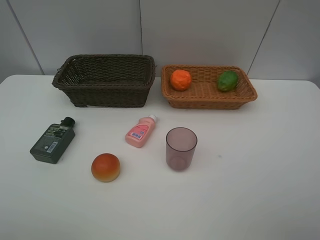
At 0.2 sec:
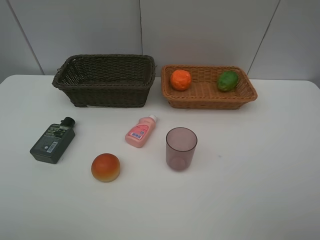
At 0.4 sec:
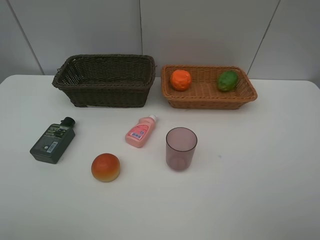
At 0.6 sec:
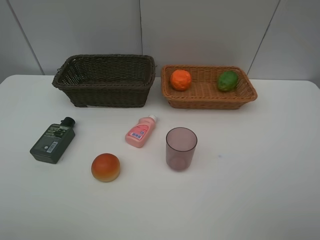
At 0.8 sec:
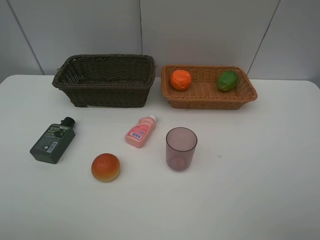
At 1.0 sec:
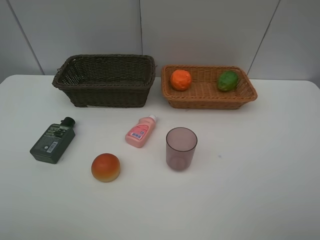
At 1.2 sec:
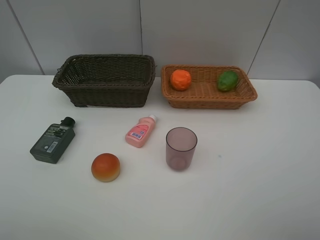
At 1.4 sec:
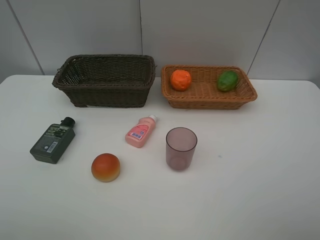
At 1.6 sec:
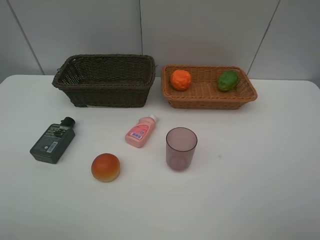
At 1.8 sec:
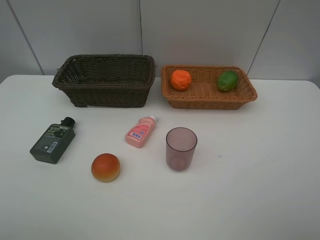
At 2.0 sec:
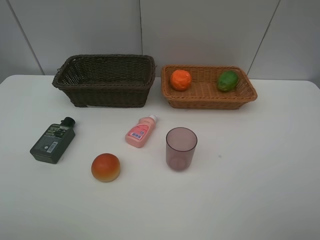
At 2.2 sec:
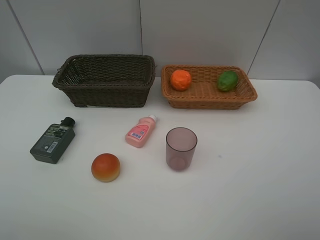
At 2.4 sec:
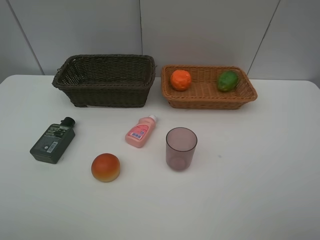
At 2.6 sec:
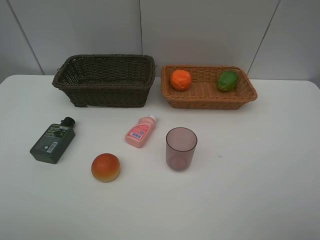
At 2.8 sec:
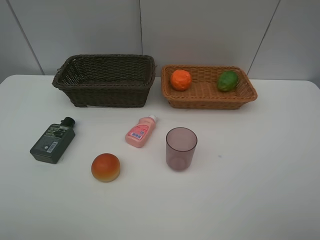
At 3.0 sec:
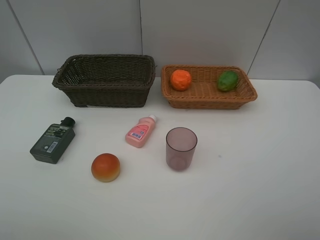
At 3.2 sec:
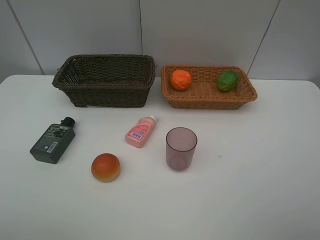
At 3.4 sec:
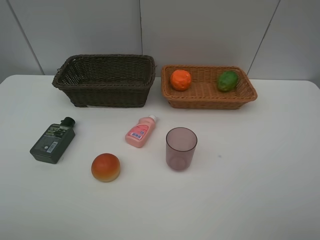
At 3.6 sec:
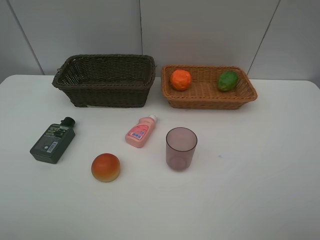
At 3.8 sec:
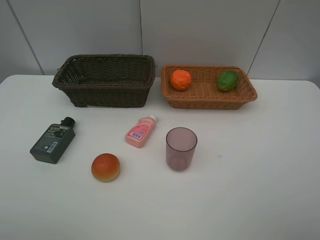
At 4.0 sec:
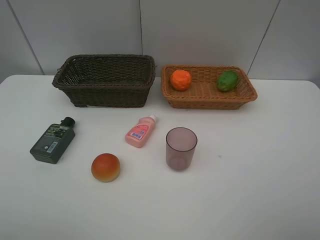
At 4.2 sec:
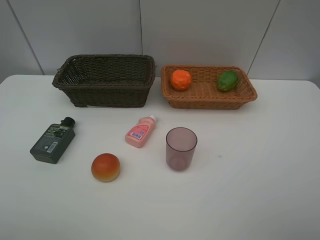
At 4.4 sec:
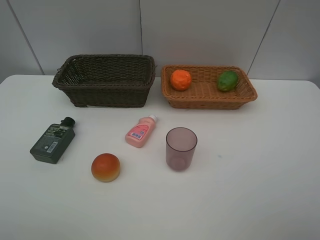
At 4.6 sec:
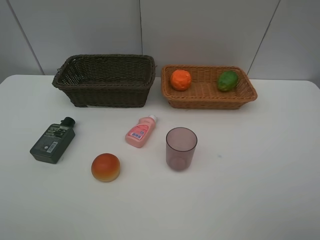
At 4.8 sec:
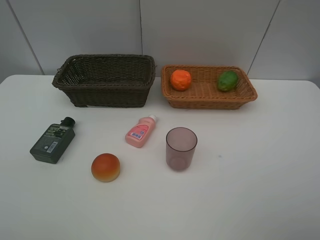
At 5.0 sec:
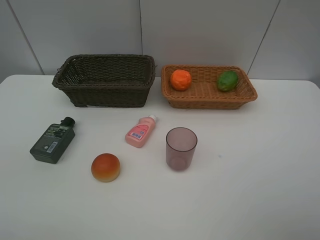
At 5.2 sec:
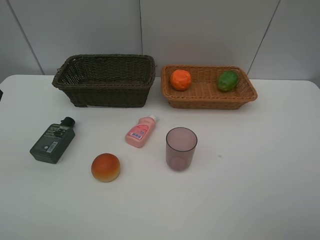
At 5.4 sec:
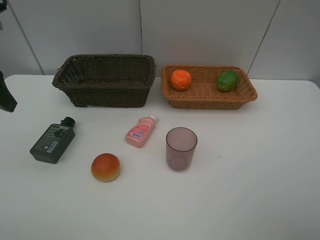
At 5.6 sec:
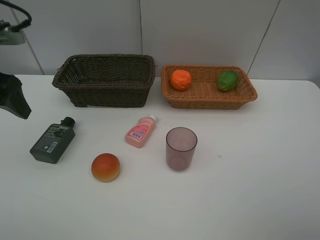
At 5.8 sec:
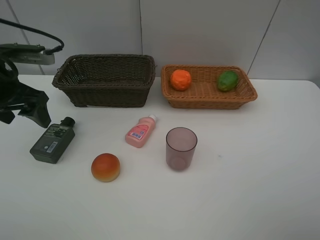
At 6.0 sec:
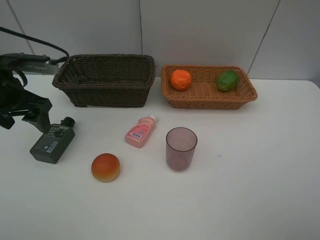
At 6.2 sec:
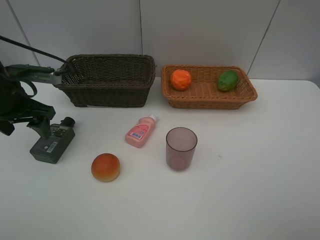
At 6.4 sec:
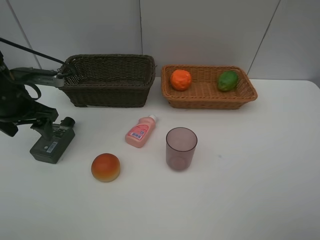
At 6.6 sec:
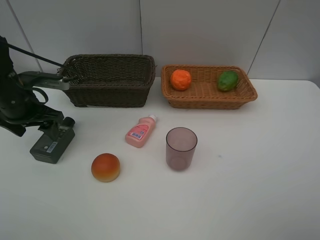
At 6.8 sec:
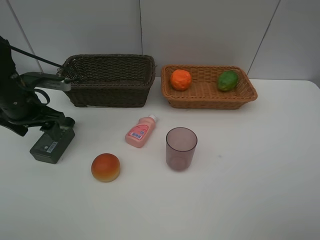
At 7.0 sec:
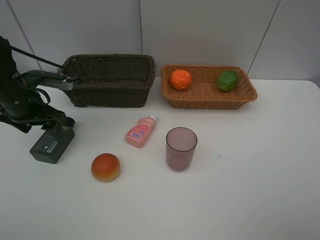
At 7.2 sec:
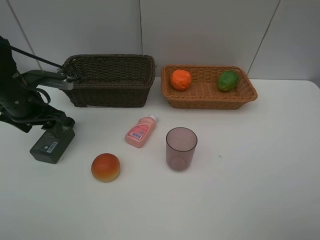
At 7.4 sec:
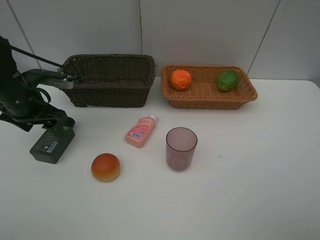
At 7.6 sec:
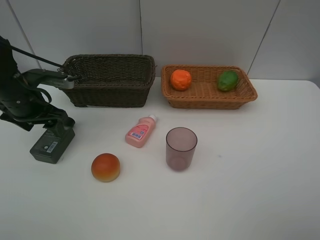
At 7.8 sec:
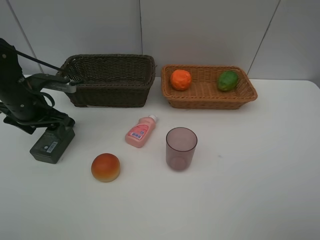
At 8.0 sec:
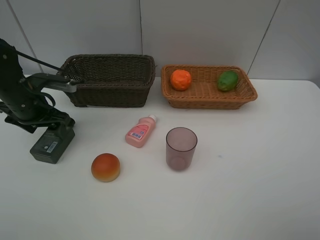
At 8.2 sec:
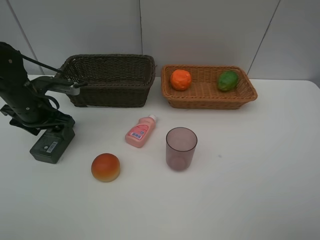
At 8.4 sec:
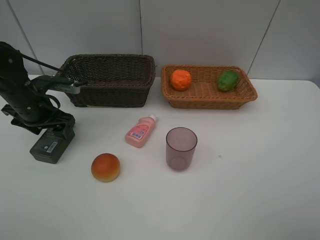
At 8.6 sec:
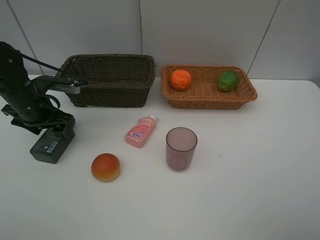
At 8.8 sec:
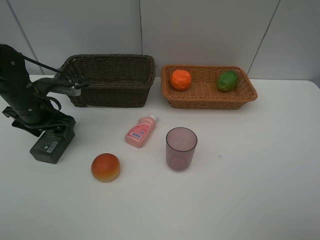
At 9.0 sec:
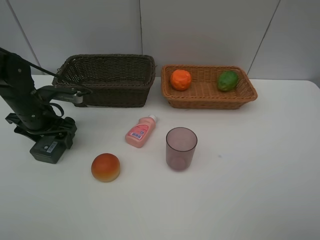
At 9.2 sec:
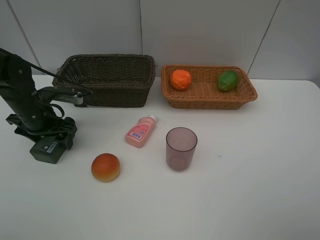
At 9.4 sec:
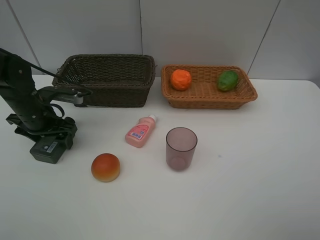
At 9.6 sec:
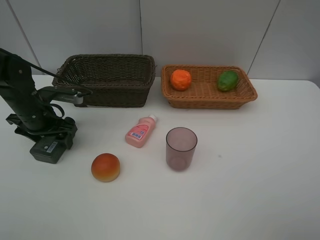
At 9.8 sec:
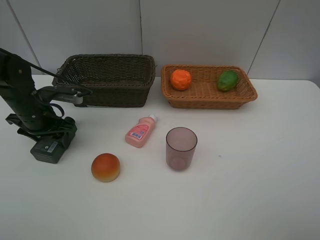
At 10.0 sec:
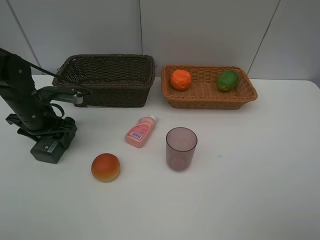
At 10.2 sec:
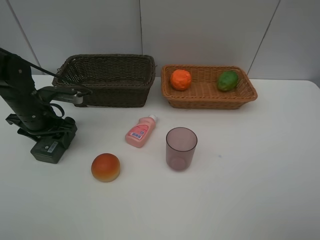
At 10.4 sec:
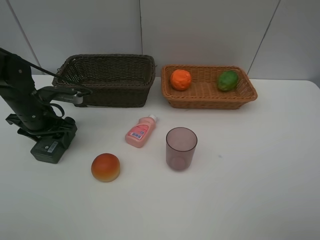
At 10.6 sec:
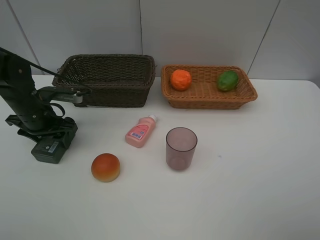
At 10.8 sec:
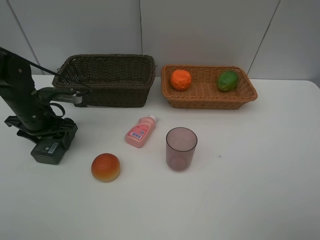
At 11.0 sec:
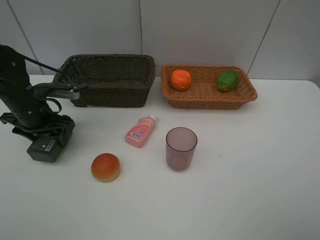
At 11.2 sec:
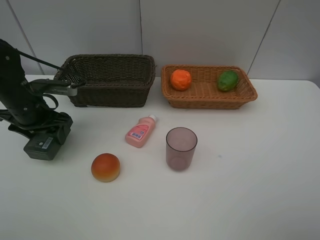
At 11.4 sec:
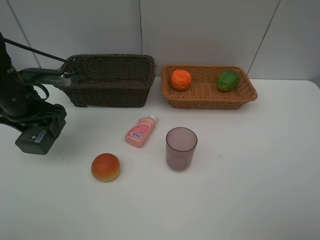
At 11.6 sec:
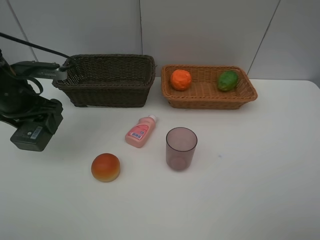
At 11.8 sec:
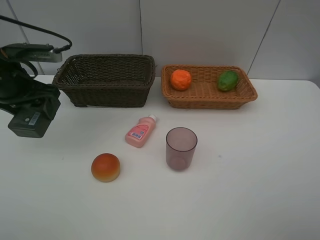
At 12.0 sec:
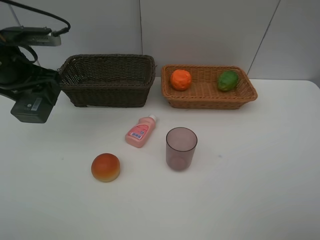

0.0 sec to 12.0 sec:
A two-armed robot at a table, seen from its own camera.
Task of the whole recording: place multiple objects separately in different baskets.
1.6 sec to 3.0 sec: Both grippers stay about where they are.
4.4 sec to 6.0 sec: The left gripper moves forward and downward, approximately 30 cm.
6.0 sec to 7.6 sec: The left gripper is displaced downward by about 5 cm.
7.6 sec to 9.0 sec: The grippers stay close to where they were, moving slightly.
9.0 sec to 10.4 sec: Neither gripper changes place.
10.4 sec to 12.0 sec: The left gripper shifts about 15 cm upward.

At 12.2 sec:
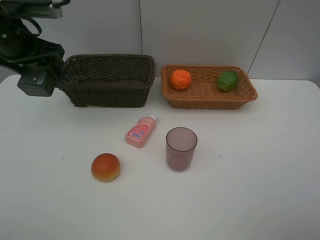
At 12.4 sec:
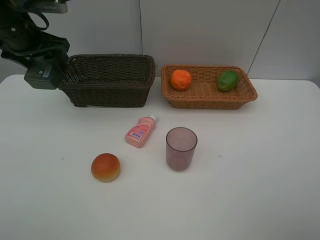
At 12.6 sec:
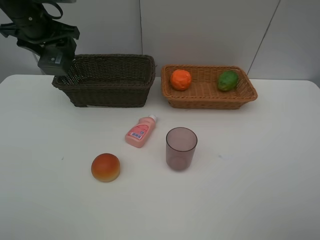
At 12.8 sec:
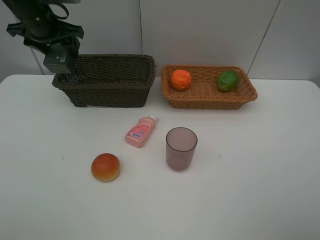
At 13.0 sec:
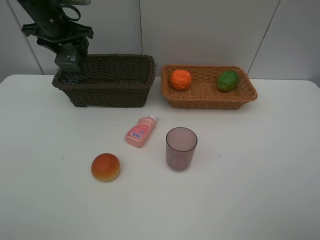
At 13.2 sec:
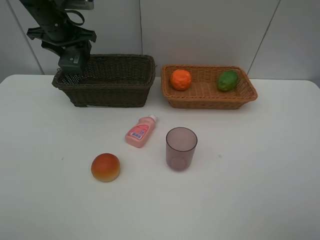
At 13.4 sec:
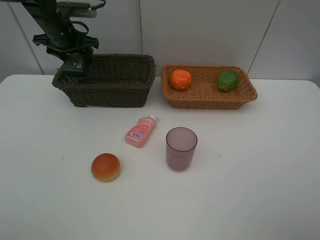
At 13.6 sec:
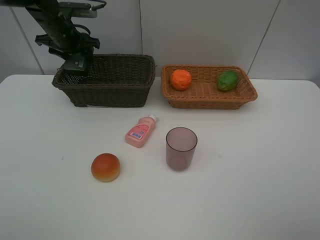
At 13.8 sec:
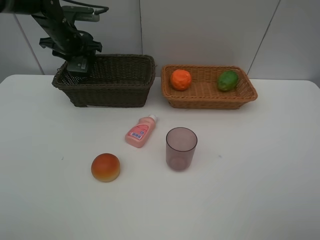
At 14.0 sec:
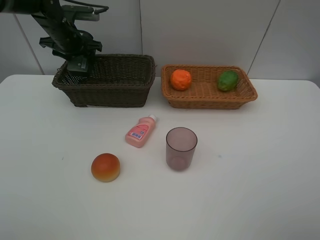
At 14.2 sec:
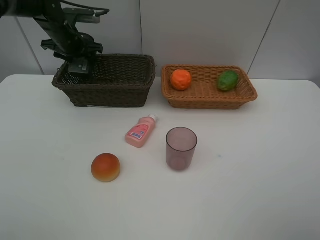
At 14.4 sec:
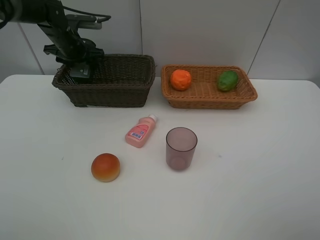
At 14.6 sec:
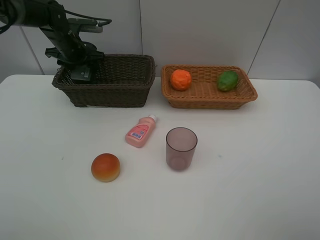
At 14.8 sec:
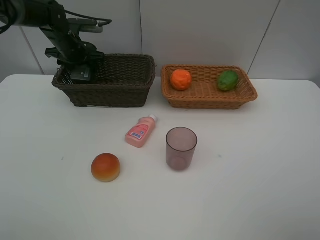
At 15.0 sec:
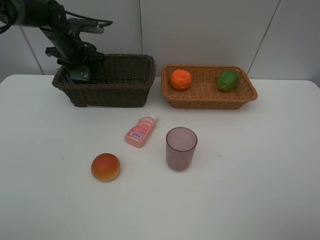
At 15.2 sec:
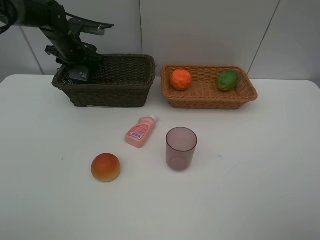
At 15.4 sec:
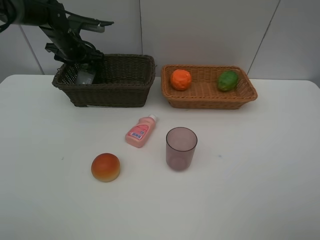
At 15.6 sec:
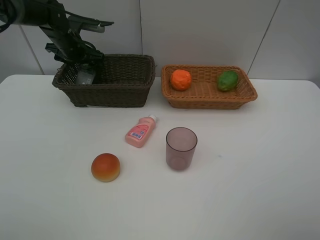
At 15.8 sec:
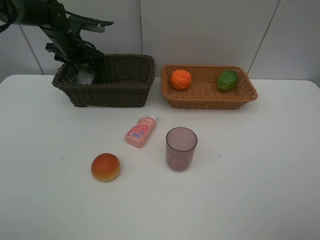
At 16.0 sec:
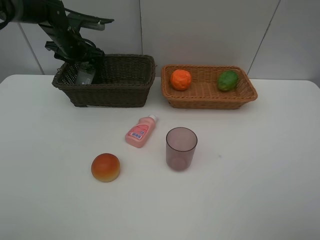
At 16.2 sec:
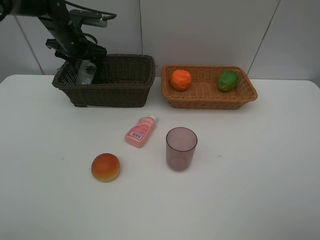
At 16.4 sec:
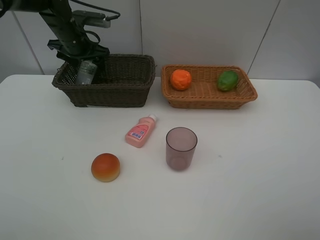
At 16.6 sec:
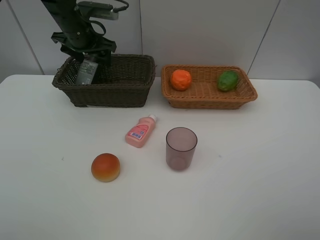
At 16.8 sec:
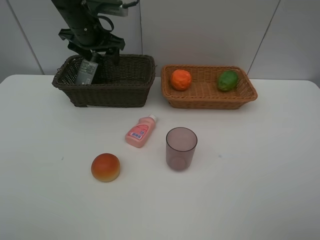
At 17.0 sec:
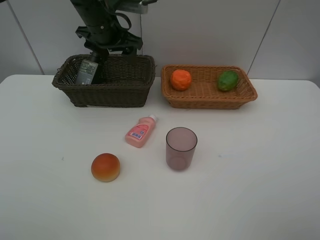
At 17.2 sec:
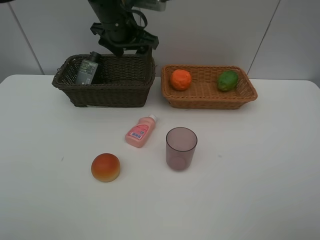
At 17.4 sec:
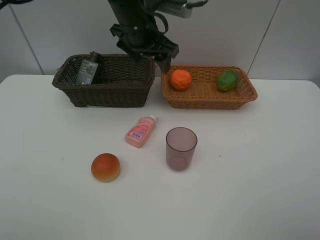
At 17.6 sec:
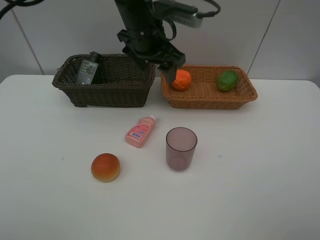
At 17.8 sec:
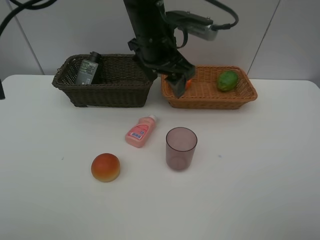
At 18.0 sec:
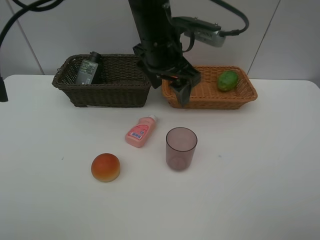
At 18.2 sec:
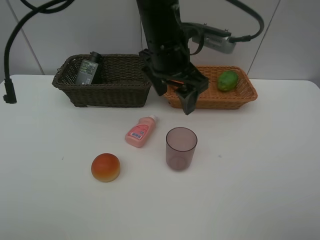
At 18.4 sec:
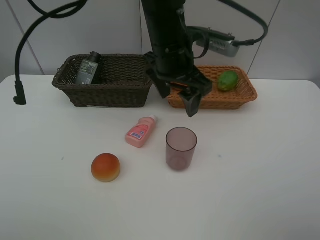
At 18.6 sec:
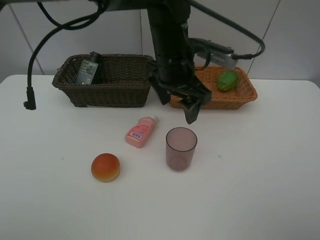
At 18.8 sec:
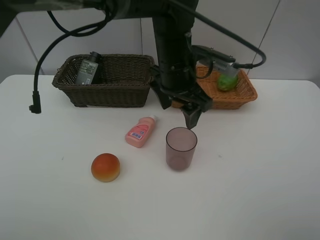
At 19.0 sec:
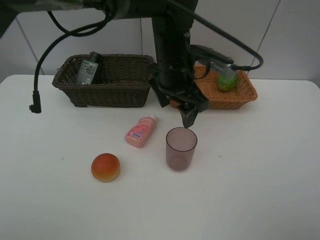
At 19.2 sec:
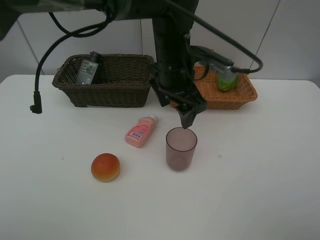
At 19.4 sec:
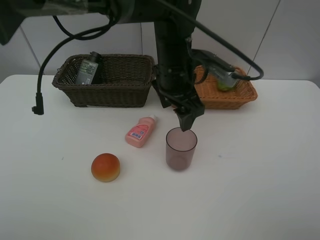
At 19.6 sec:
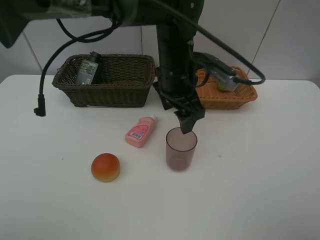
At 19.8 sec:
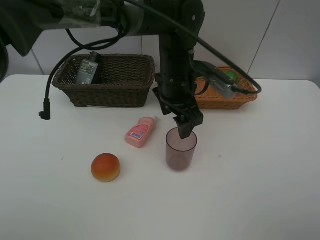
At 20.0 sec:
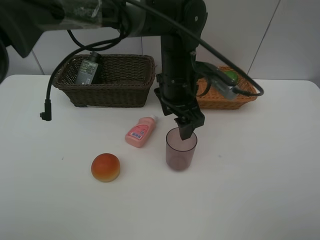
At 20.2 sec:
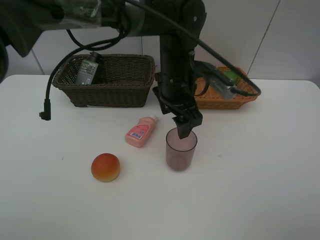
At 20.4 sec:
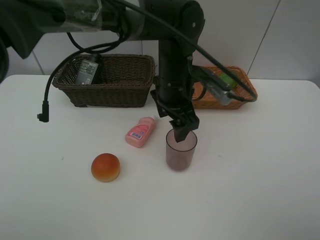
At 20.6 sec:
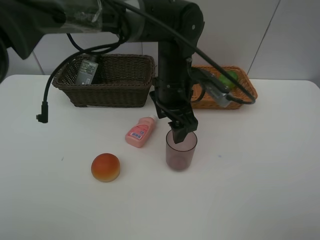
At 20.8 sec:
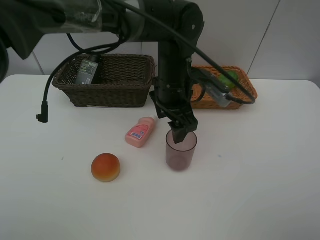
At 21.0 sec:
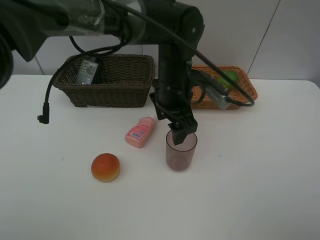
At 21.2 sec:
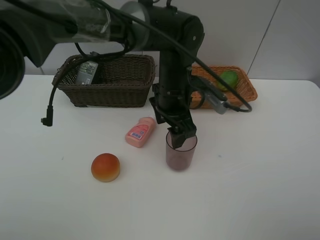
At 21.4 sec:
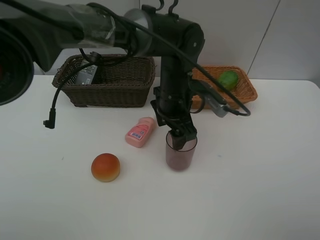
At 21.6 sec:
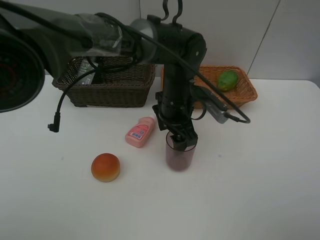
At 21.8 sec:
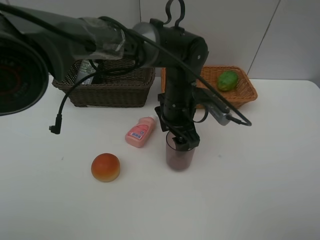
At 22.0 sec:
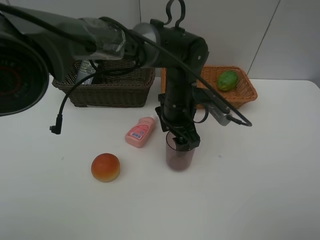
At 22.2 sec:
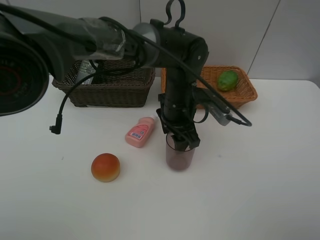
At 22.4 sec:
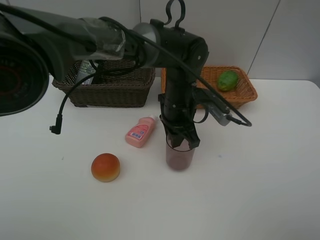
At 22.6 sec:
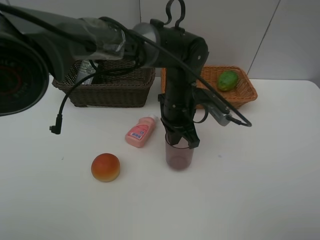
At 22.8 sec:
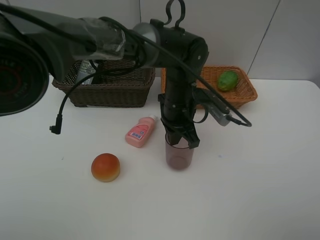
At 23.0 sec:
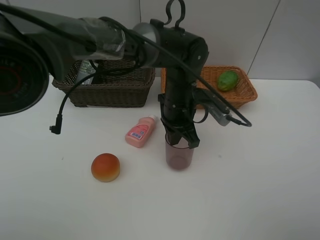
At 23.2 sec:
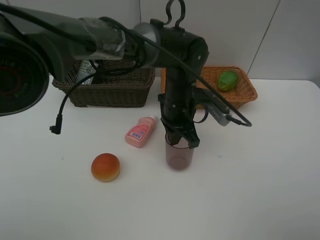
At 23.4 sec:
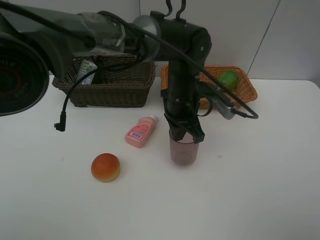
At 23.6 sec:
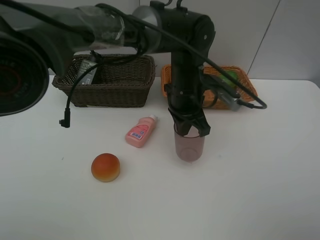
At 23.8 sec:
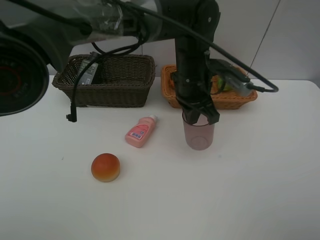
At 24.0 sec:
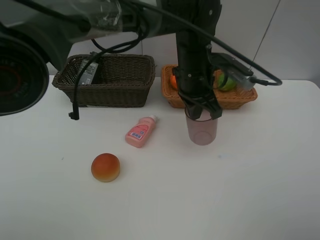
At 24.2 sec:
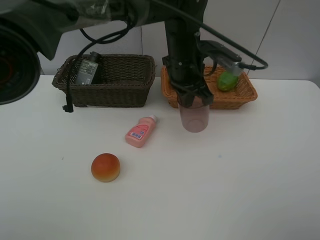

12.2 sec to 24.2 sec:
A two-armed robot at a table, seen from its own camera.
Task of the whole recording: place multiple objects separately in different baskets.
12.2 sec to 13.8 sec: The left gripper moves forward and downward, roughly 15 cm.
13.8 sec to 15.2 sec: The grippers stay close to where they were, moving slightly.
15.2 sec to 16.6 sec: The left gripper heads upward and to the right, covering roughly 10 cm.
16.6 sec to 18.2 sec: The left gripper heads to the right and backward, covering about 25 cm.
18.2 sec to 19.8 sec: The left gripper is displaced downward by approximately 5 cm.
19.8 sec to 21.2 sec: The grippers make only small movements.
21.2 sec to 22.6 sec: The left gripper closes its fingers.
22.6 sec to 24.2 sec: The left gripper goes approximately 10 cm upward.
